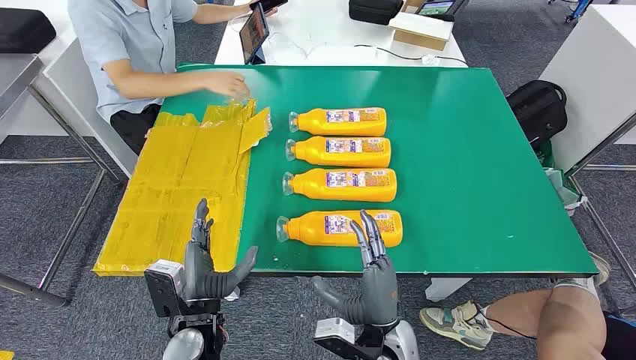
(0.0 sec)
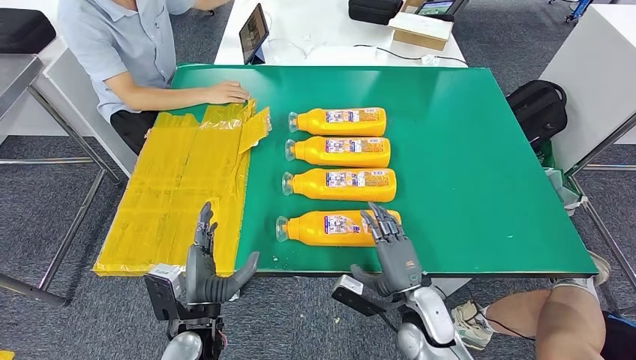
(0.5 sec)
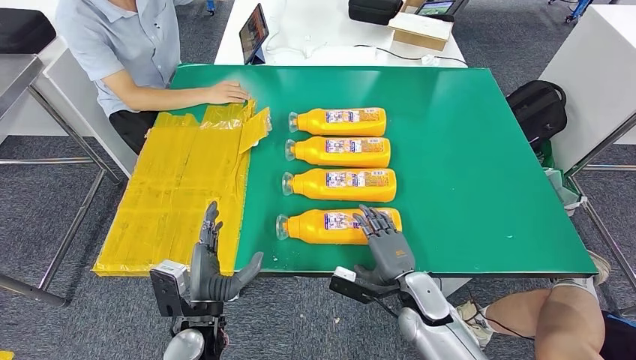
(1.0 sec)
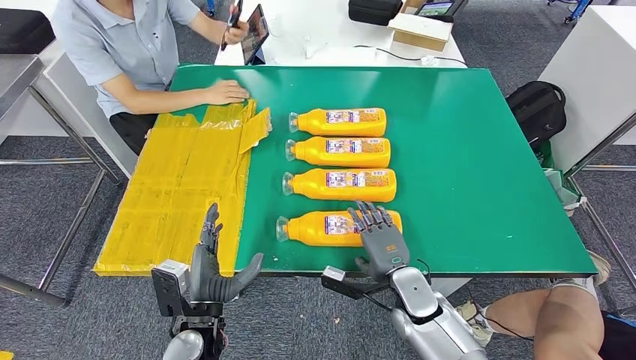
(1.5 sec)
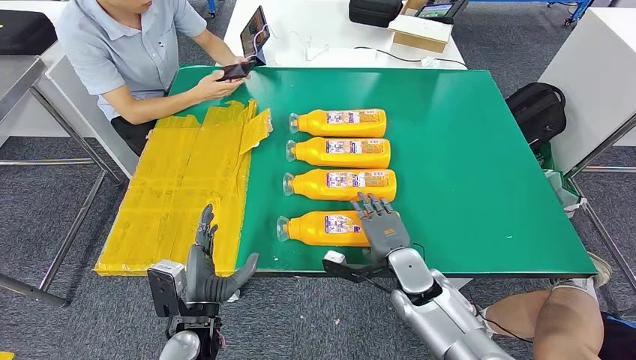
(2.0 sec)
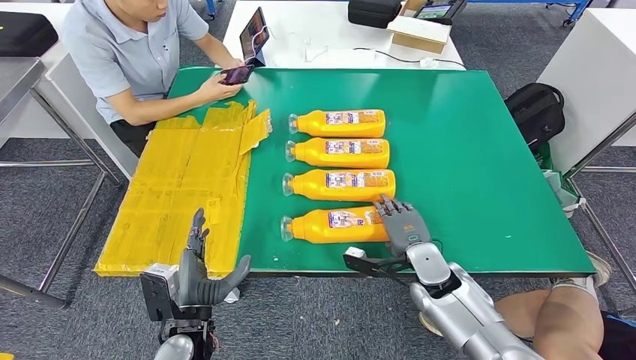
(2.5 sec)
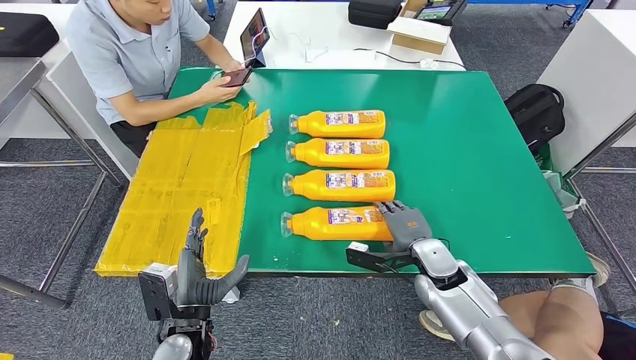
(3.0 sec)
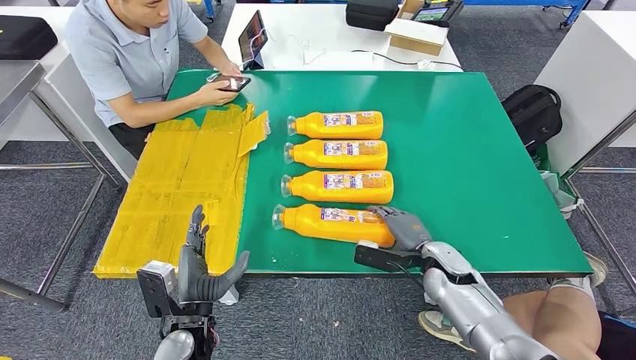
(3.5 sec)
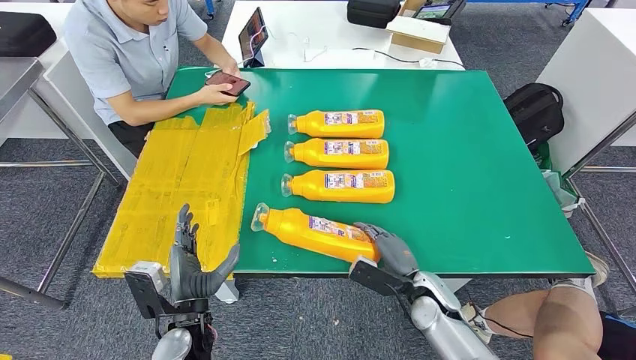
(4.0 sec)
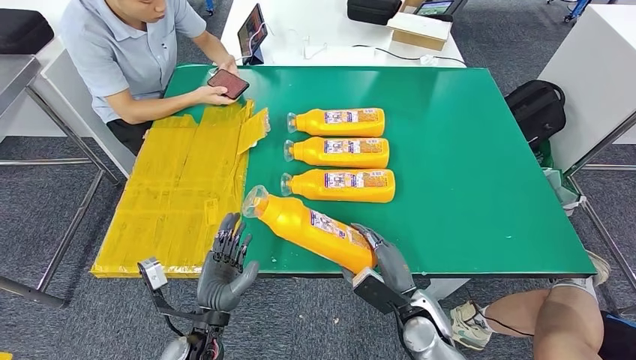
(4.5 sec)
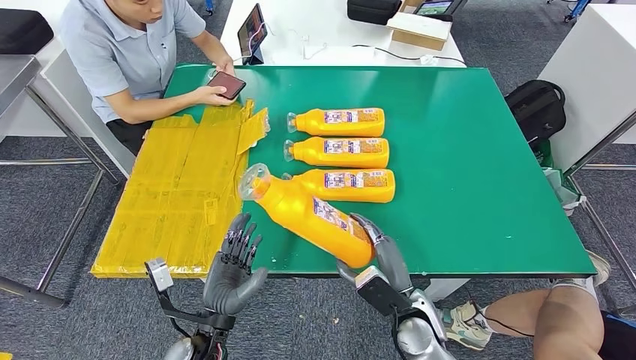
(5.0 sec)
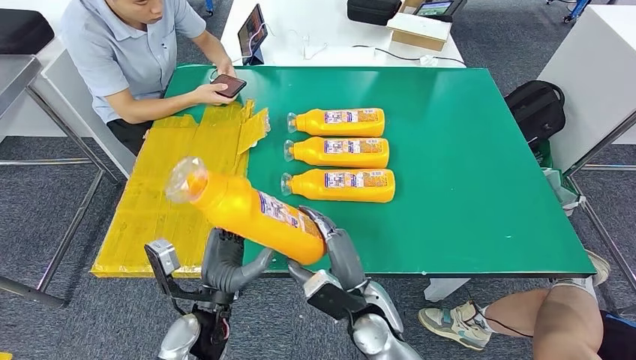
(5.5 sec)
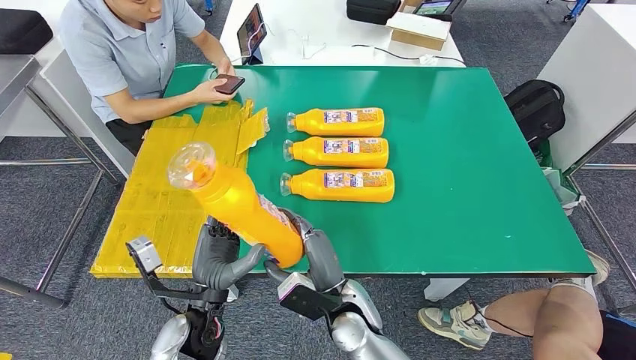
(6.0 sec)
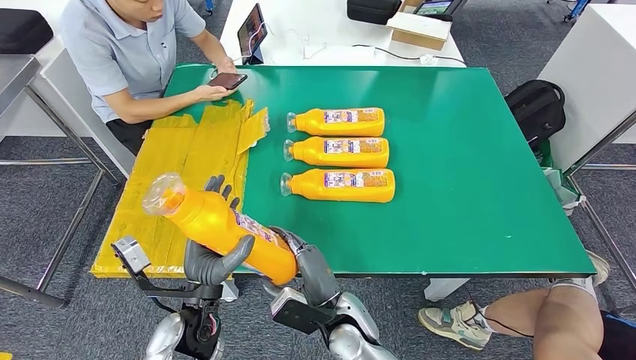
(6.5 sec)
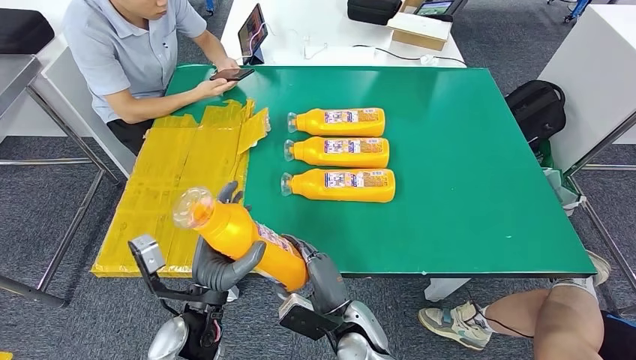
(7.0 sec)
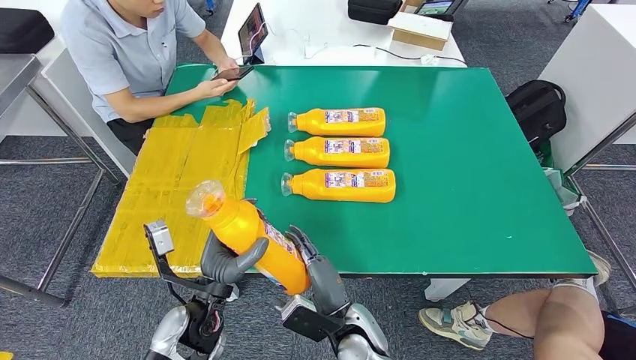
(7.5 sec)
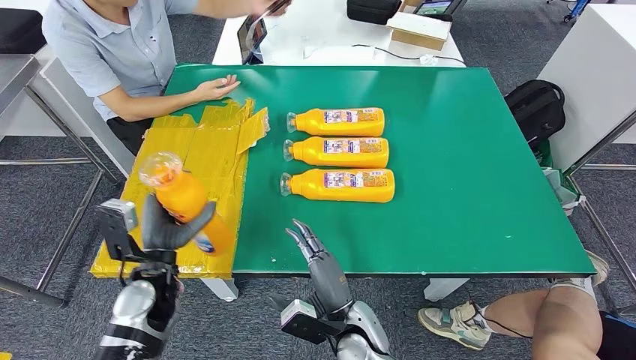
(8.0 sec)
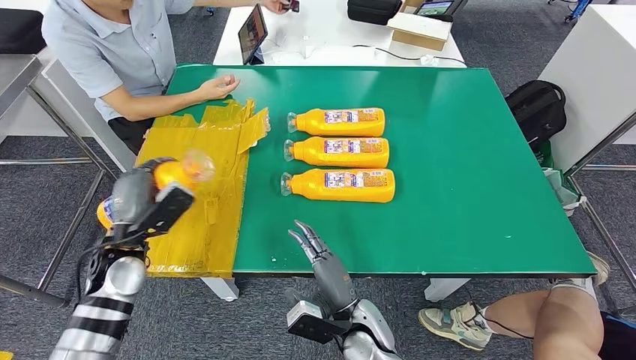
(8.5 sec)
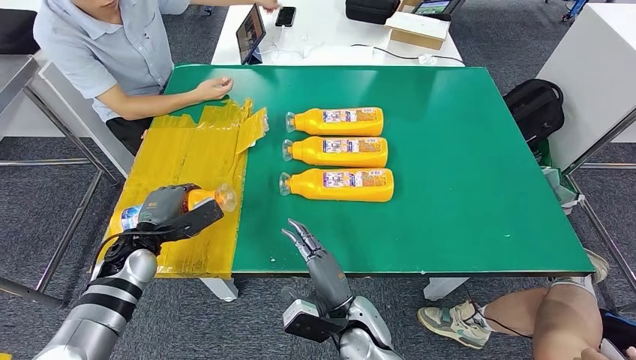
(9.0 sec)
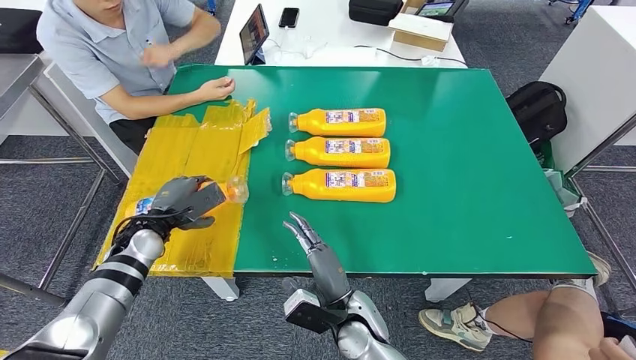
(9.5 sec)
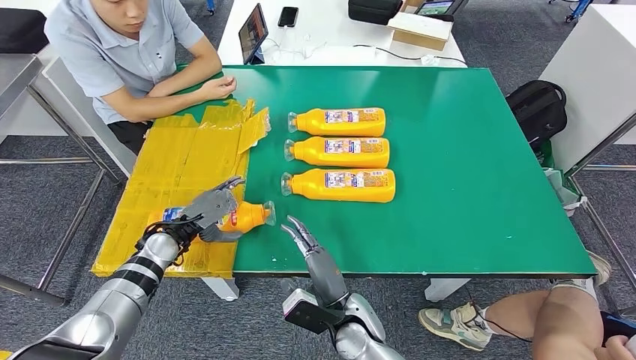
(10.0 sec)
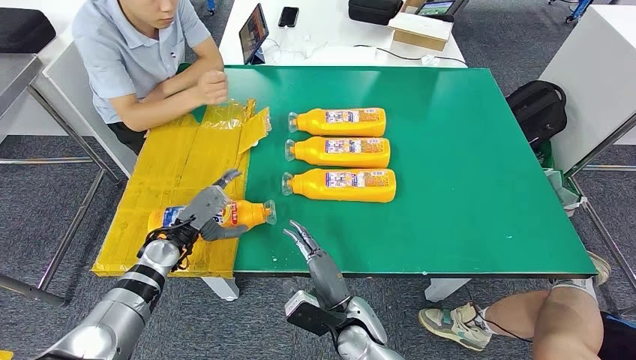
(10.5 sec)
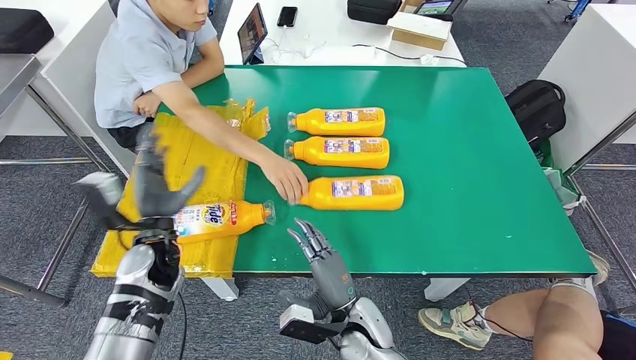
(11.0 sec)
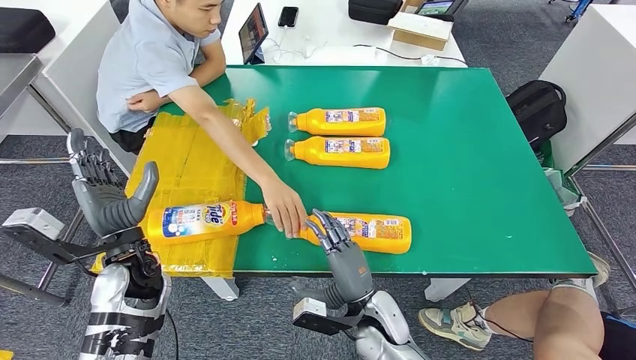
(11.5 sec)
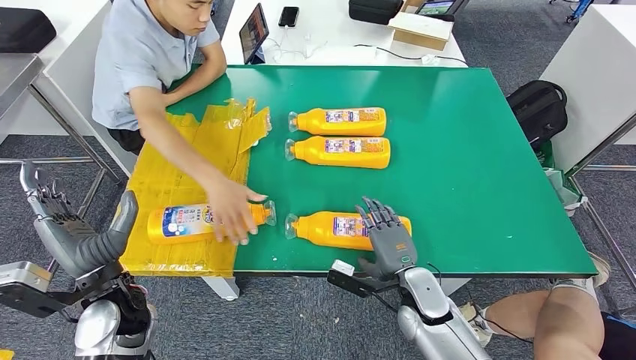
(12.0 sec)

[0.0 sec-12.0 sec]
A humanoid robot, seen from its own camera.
Step, 0.0 sec to 7.0 sec: Take the fast-moving consumer goods bottle from the table.
Step, 7.5 sec to 10.5 sec: Flip the fast-moving consumer goods bottle to the front side.
2.0 sec to 4.0 sec: The right hand shifts by about 5 cm.
6.0 sec to 8.0 sec: The left hand heads to the left and forward, covering approximately 10 cm.
8.0 sec to 10.0 sec: The left hand shifts approximately 10 cm forward.

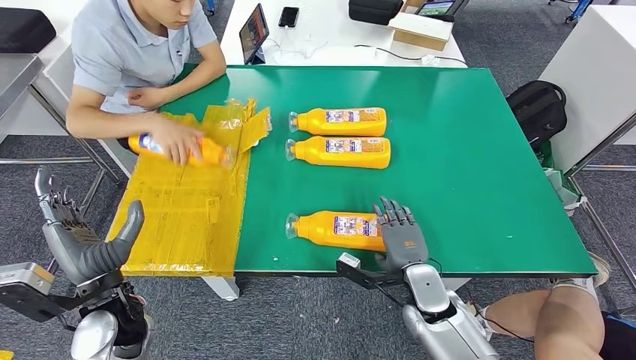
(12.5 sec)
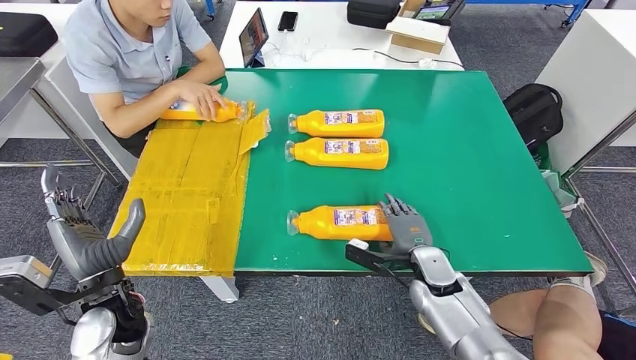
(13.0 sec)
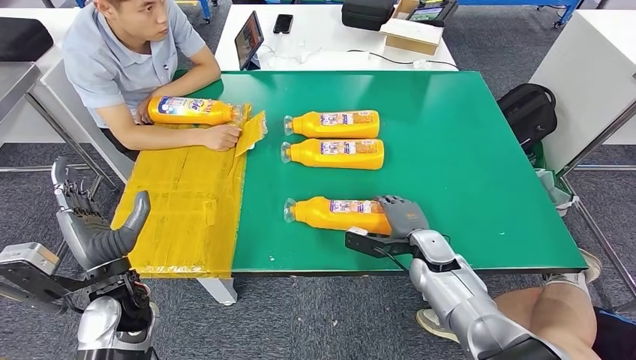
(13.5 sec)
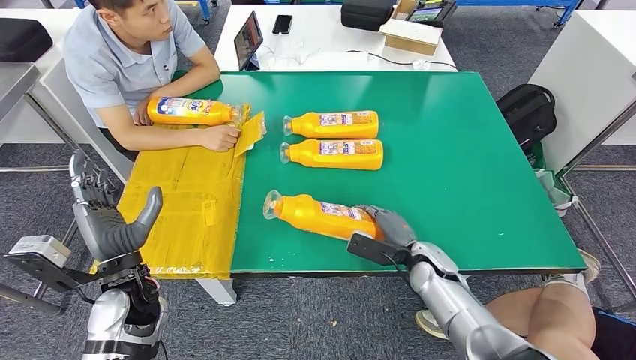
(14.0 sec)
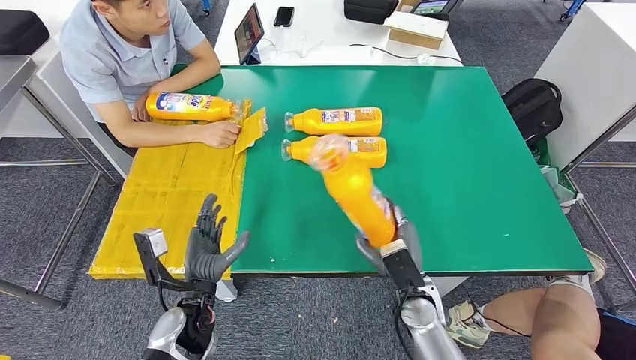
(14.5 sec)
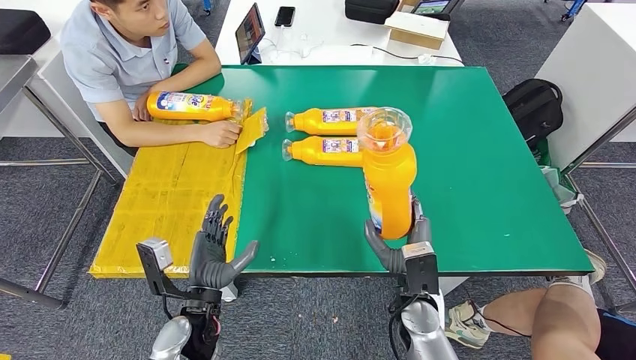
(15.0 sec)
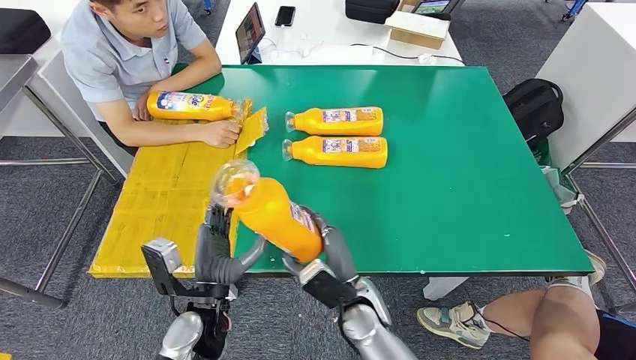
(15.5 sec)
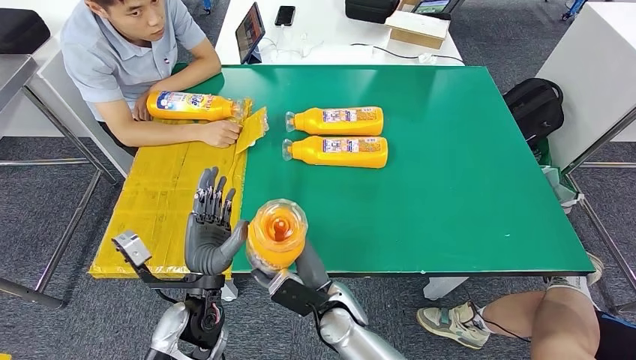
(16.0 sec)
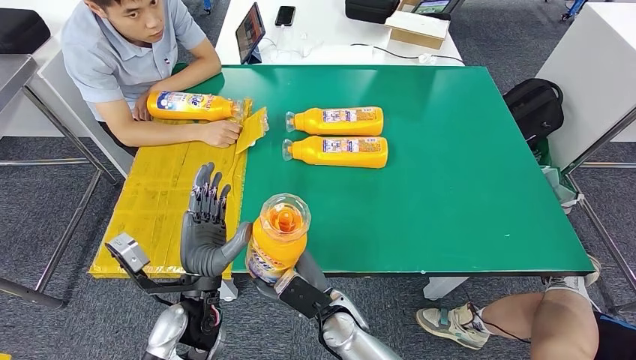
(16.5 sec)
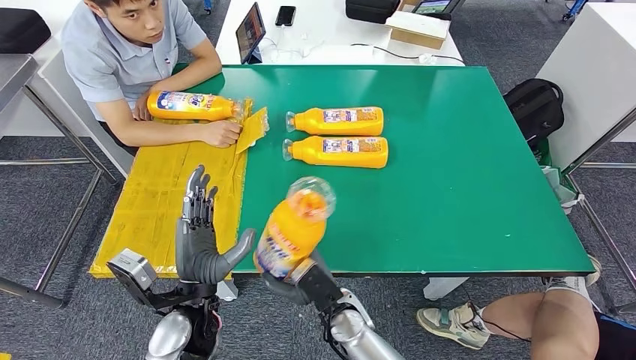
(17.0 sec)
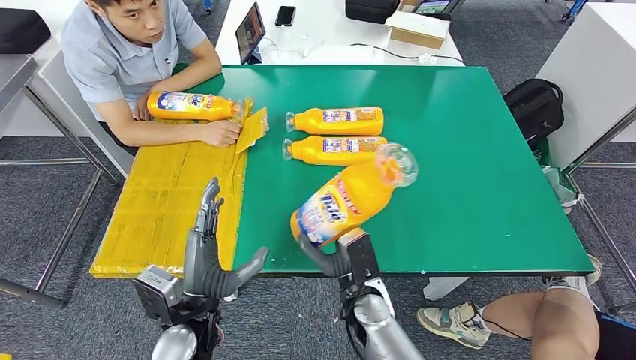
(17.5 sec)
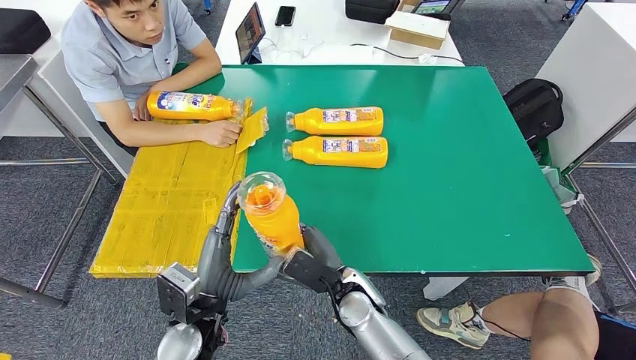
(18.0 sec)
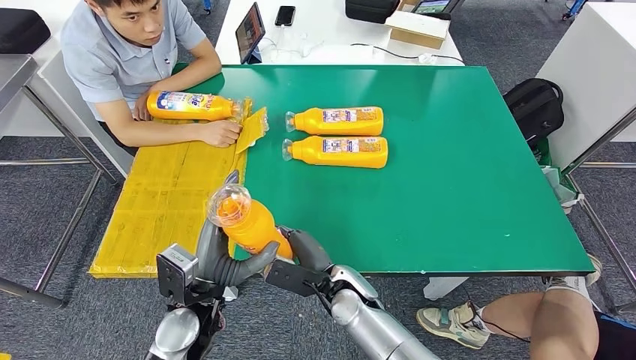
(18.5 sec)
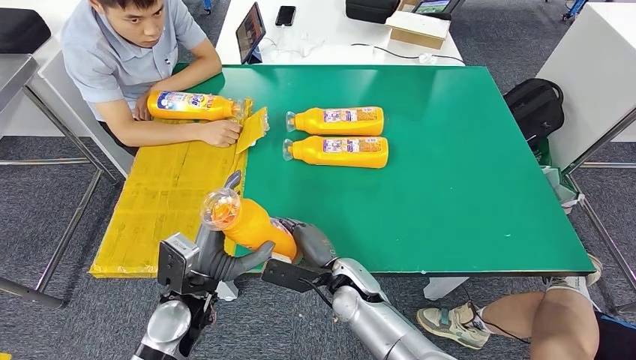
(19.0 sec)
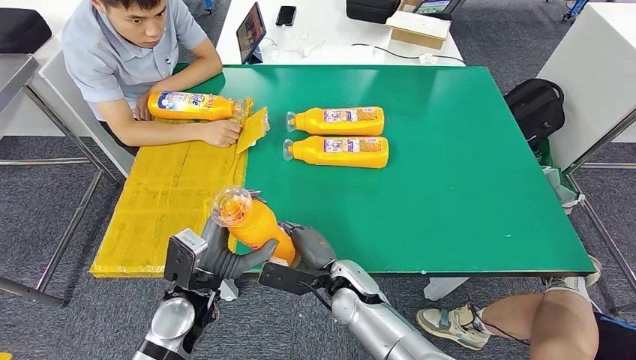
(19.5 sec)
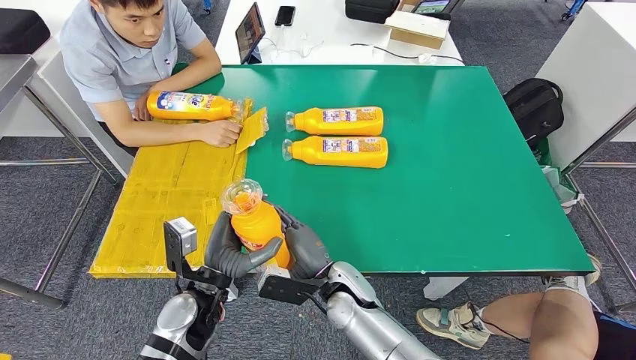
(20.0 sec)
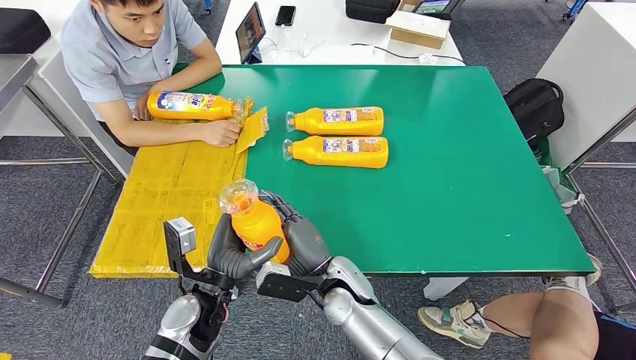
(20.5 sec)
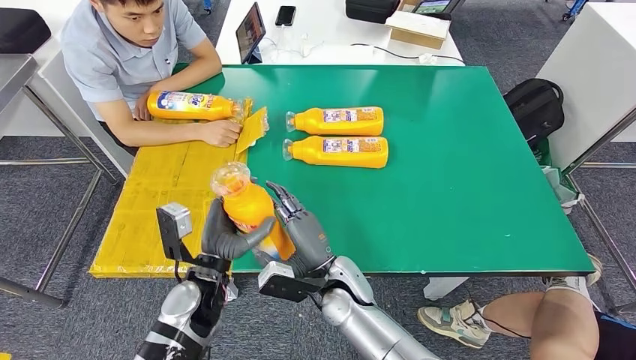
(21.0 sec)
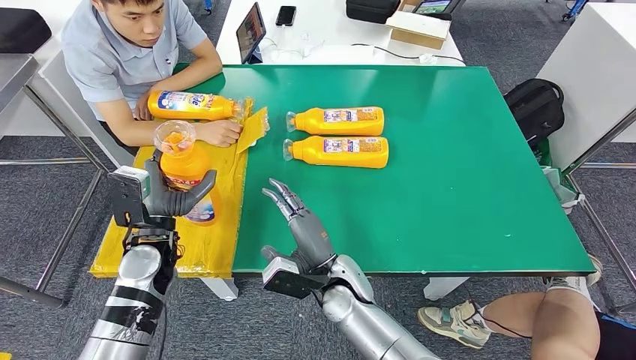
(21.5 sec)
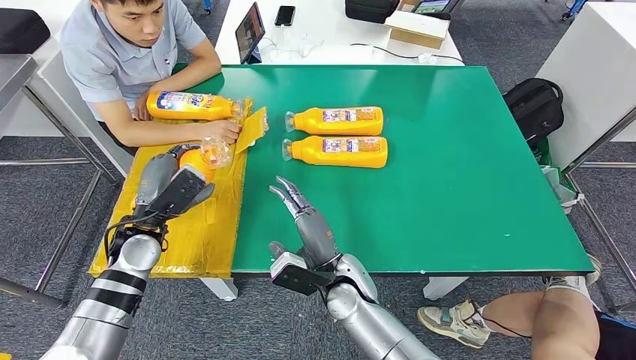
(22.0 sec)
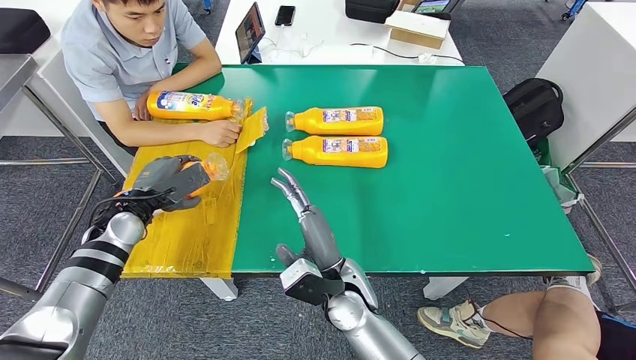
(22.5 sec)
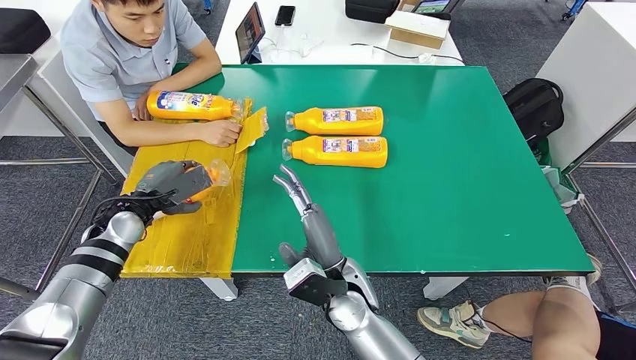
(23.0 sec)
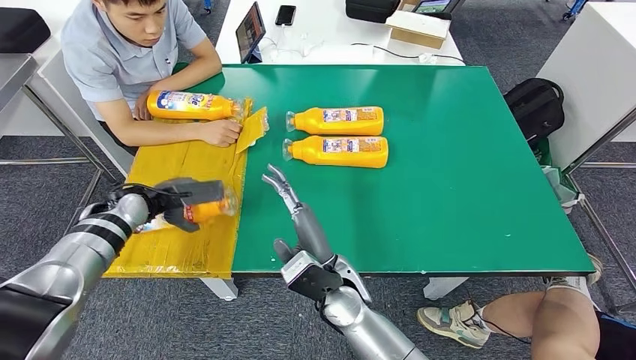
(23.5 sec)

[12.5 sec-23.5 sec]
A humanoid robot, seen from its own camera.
Step, 12.5 sec to 19.5 sec: Pick up the fast-moving consumer goods bottle from the table.
14.5 sec to 16.0 sec: The right hand moves to the left, roughly 15 cm, while the left hand ends up approximately 5 cm from where it was.
20.0 sec to 21.5 sec: The left hand heads to the left and forward, covering about 10 cm.
21.5 sec to 23.5 sec: The left hand travels forward and to the left by about 15 cm.
